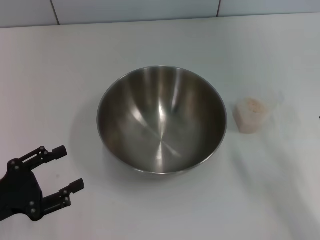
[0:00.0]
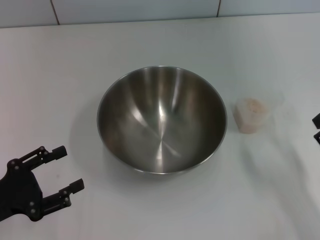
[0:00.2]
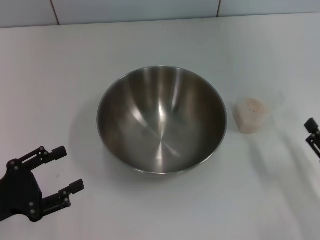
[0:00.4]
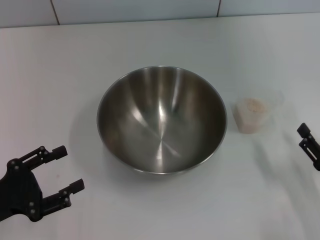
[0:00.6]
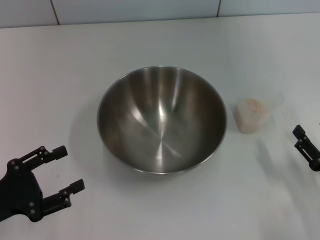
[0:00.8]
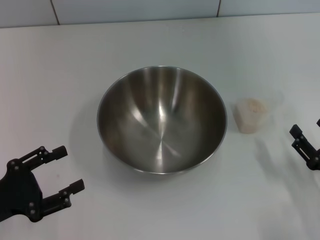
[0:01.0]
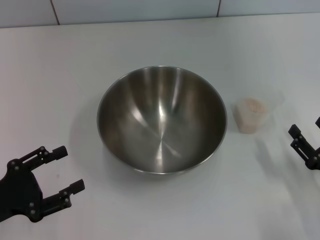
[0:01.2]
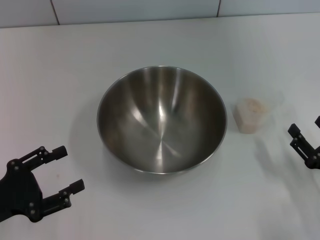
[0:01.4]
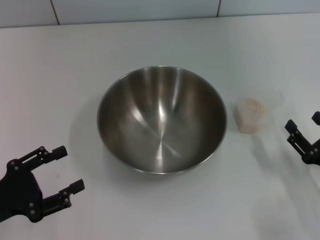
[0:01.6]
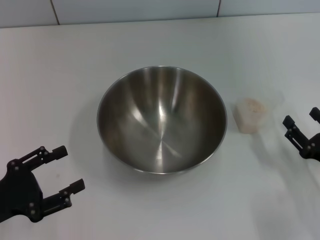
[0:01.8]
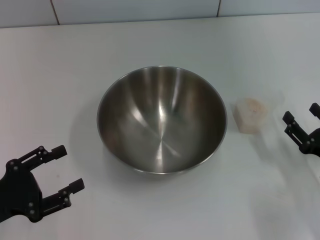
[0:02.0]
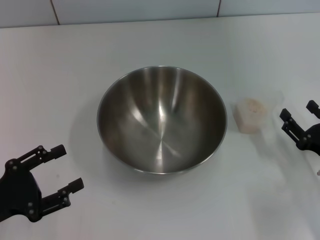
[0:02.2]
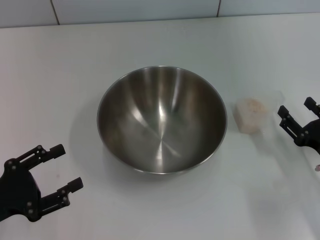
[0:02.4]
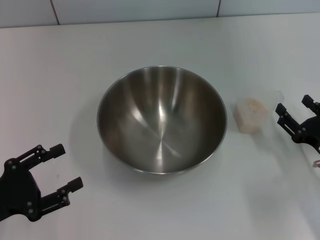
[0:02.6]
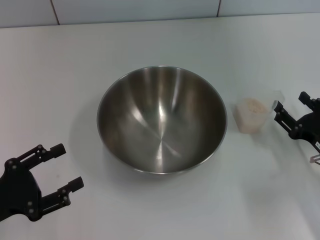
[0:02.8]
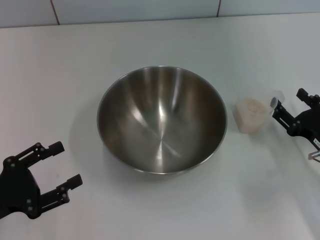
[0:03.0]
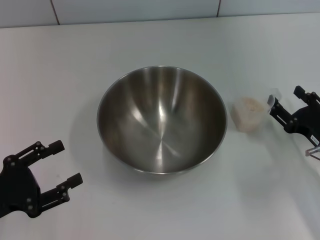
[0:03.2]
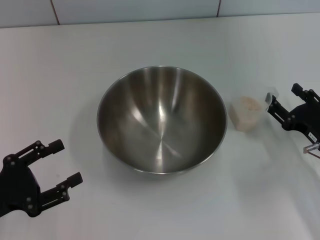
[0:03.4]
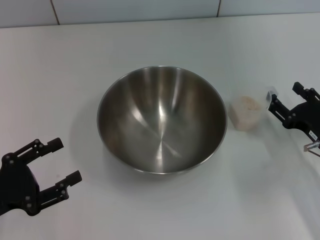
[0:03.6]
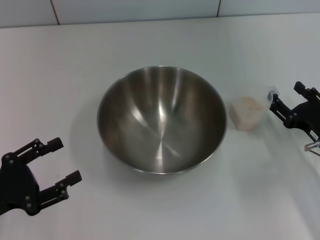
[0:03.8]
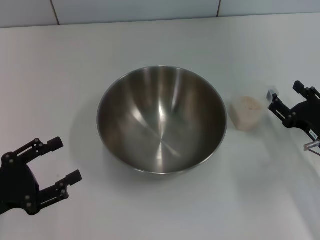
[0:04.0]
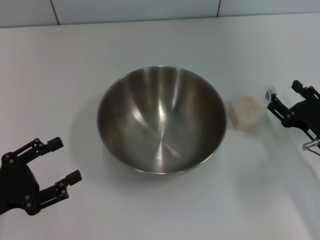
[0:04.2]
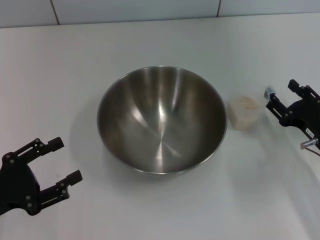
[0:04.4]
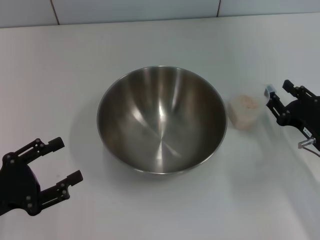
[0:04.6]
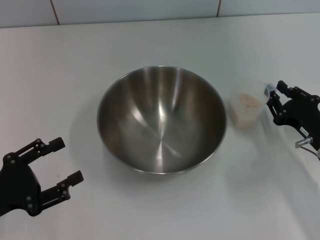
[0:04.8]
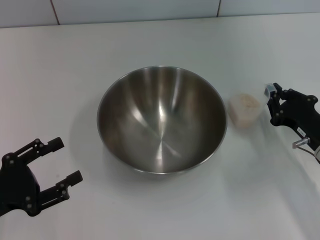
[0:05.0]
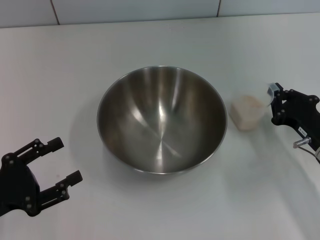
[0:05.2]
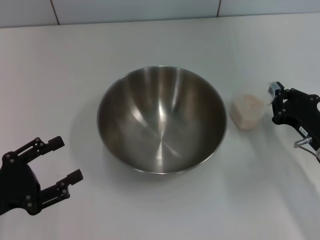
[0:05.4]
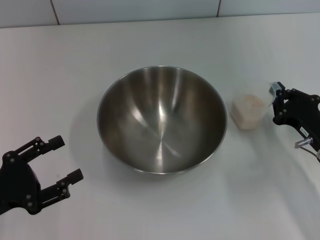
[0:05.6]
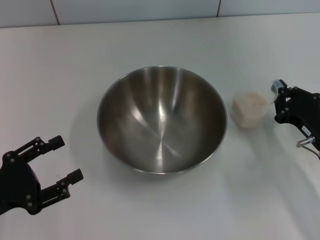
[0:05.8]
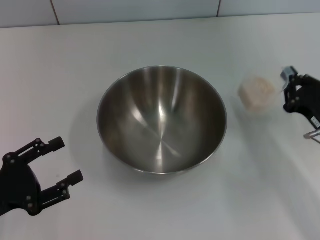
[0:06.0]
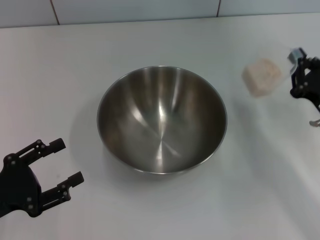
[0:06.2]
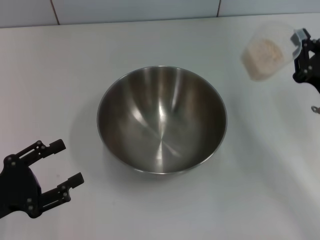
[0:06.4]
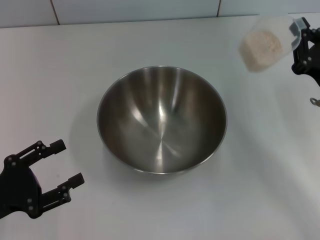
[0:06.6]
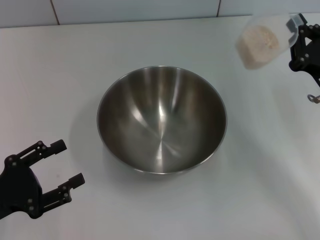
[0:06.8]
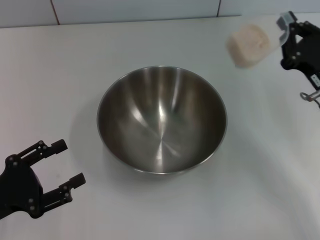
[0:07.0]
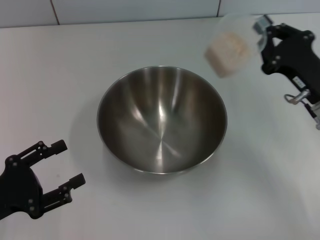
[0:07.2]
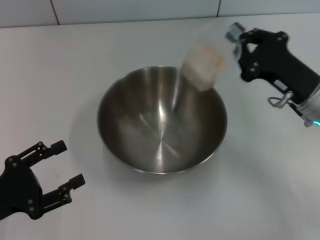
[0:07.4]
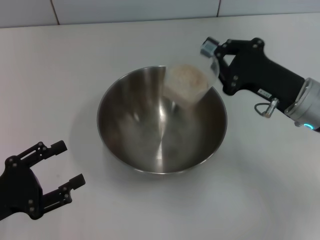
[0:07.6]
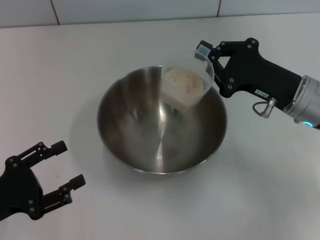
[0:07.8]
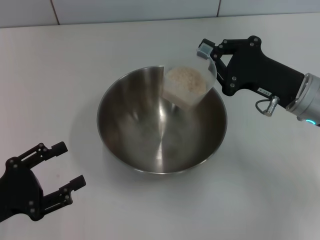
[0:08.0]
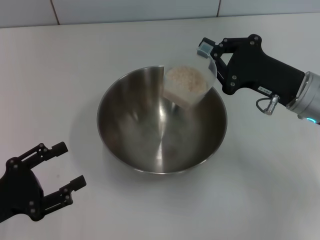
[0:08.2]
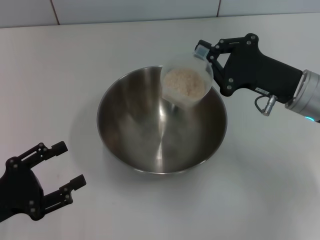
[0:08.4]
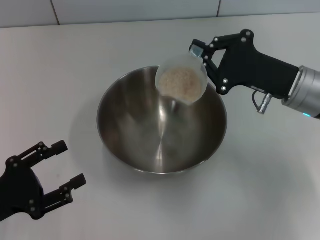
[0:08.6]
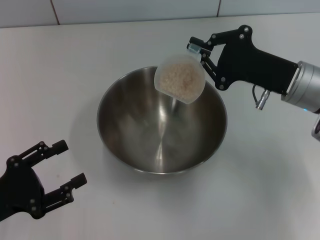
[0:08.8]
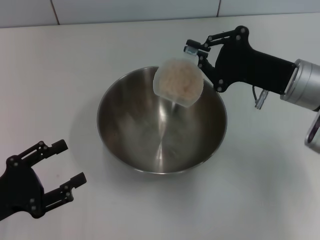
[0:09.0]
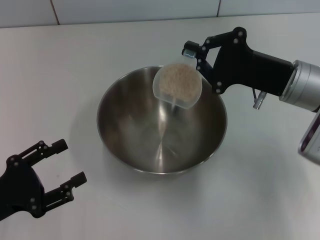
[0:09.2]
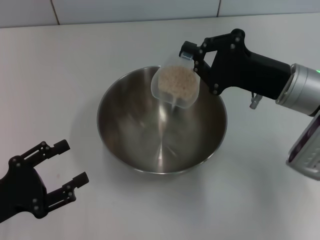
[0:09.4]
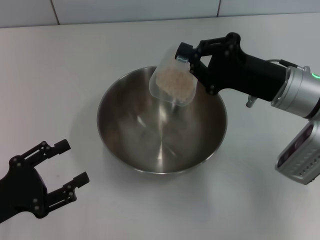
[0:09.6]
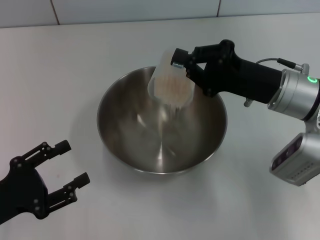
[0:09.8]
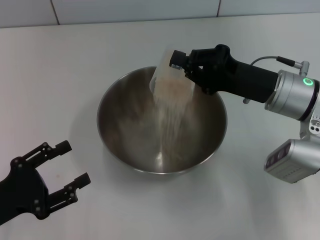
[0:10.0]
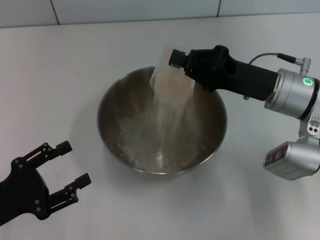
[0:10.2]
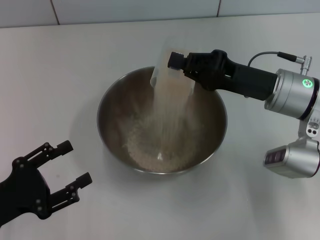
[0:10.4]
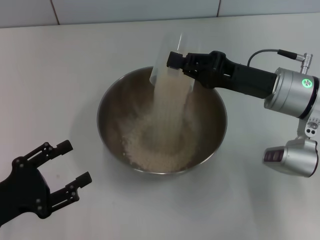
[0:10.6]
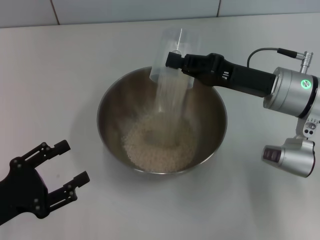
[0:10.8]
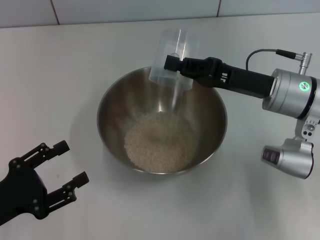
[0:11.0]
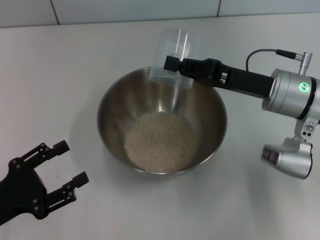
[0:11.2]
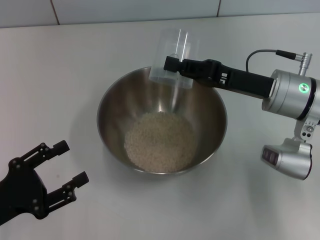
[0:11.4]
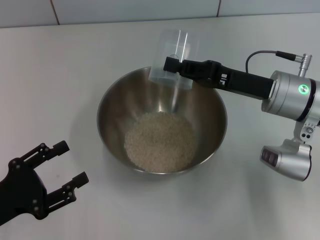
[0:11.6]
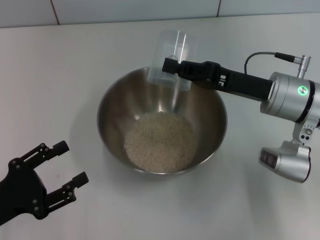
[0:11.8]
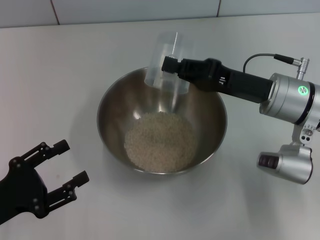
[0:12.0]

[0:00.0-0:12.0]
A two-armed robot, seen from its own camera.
Task of the whole recording: Place the bowl in the middle of the table with one hand and pour the rice from the grain cup into it with the other hand.
Step, 0:00.0 to 0:06.2: Pick up the cup with rice in it with the right gripper.
0:00.0 to 0:01.6: The grippers move only a little.
0:01.6 to 0:03.0: The right gripper heads forward, covering about 5 cm.
0:03.0 to 0:04.4: The grippers stay close to where they were, moving slightly.
0:04.4 to 0:06.0: The right gripper closes.
0:06.0 to 0:07.6: The right gripper goes roughly 10 cm upward, to the left and forward.
0:10.4 to 0:12.0: The grippers stay close to where they were, moving slightly.

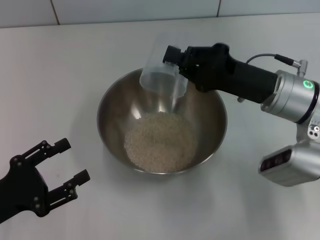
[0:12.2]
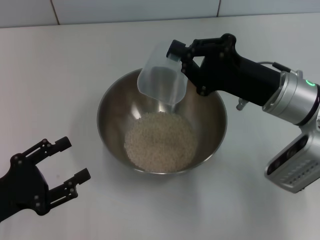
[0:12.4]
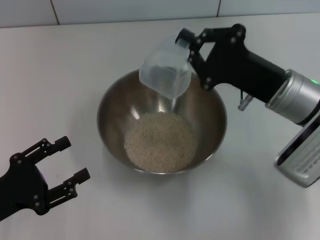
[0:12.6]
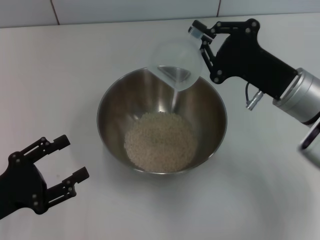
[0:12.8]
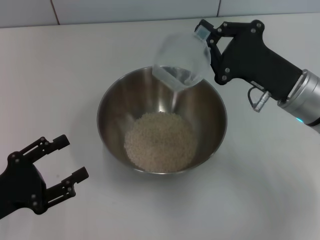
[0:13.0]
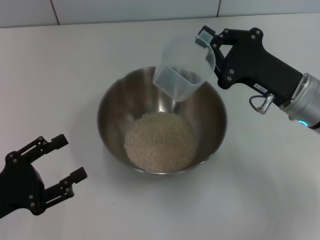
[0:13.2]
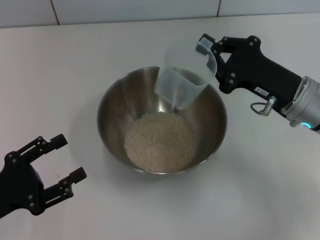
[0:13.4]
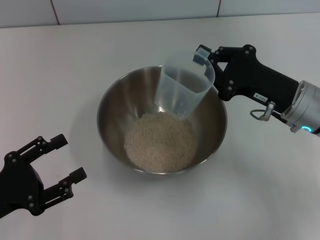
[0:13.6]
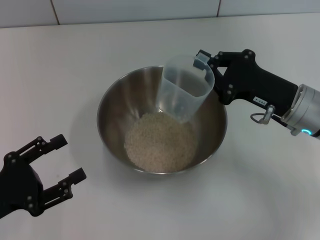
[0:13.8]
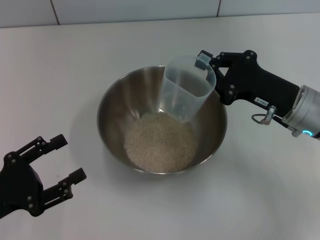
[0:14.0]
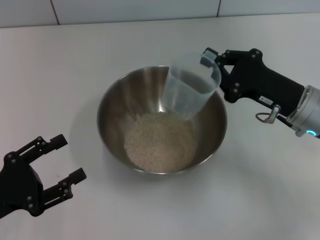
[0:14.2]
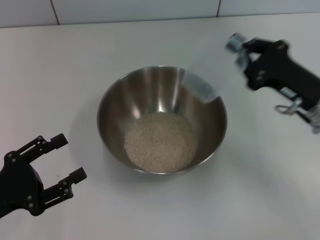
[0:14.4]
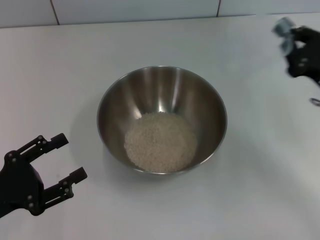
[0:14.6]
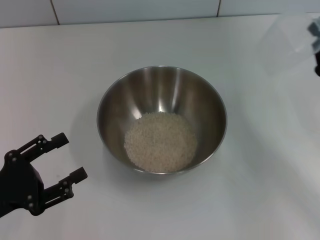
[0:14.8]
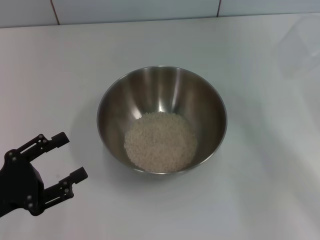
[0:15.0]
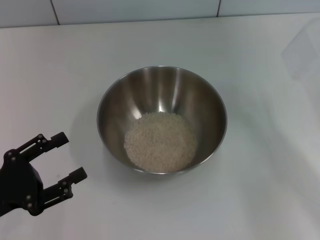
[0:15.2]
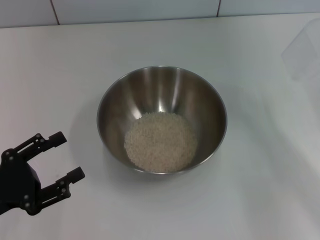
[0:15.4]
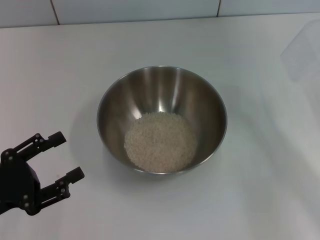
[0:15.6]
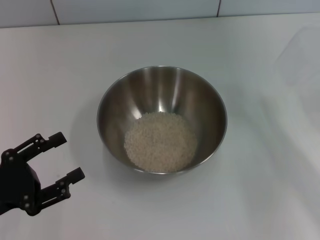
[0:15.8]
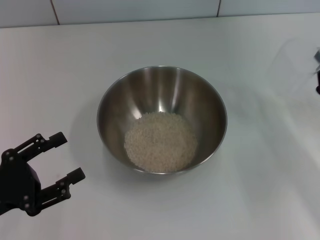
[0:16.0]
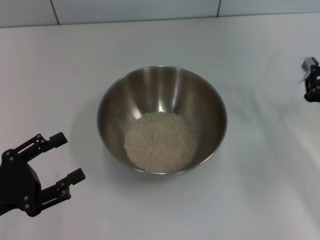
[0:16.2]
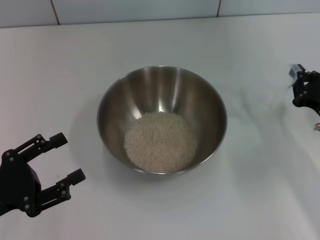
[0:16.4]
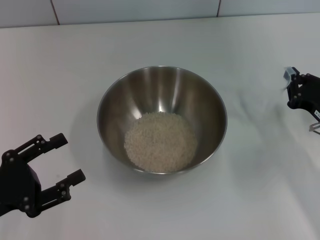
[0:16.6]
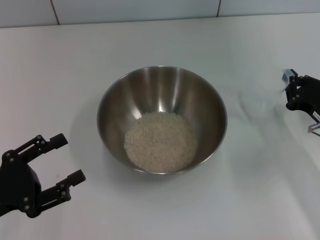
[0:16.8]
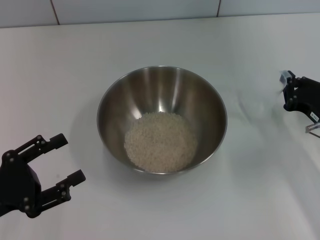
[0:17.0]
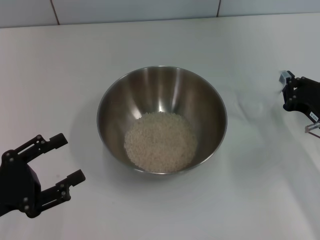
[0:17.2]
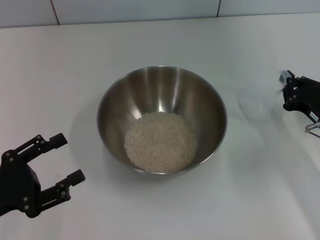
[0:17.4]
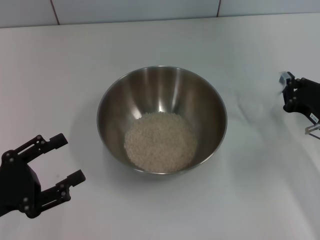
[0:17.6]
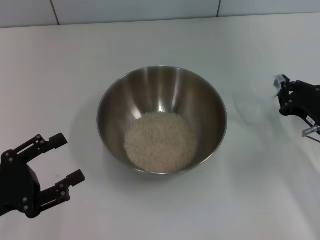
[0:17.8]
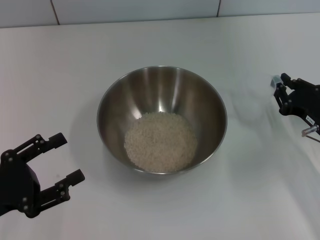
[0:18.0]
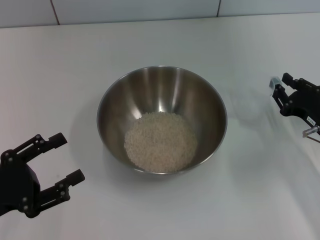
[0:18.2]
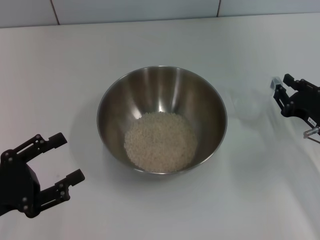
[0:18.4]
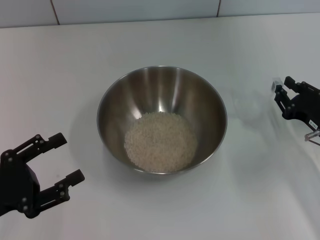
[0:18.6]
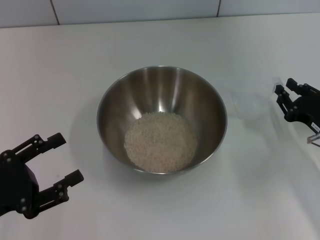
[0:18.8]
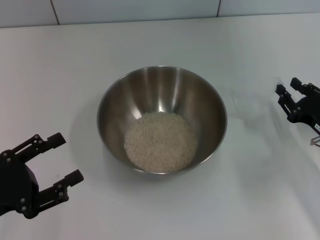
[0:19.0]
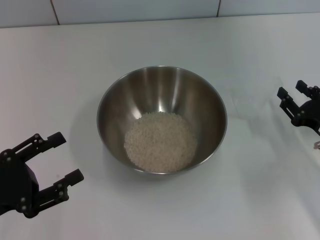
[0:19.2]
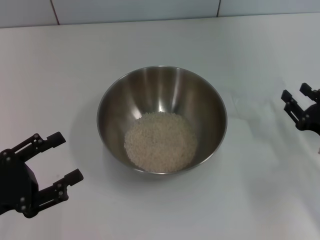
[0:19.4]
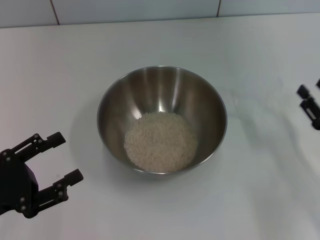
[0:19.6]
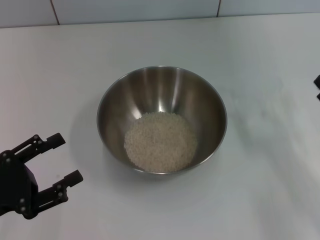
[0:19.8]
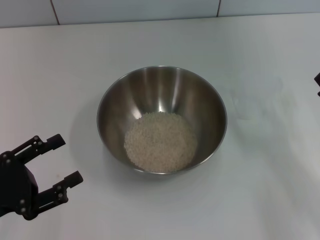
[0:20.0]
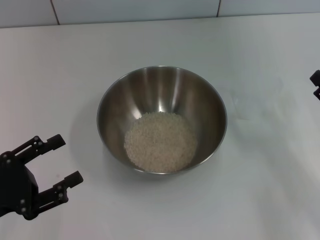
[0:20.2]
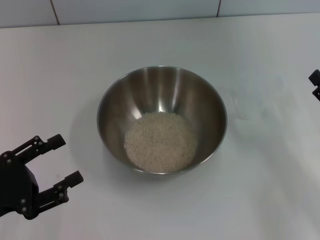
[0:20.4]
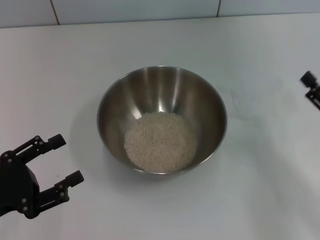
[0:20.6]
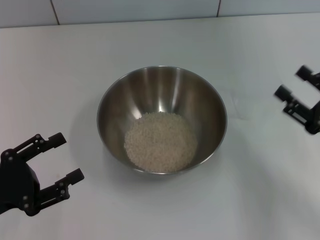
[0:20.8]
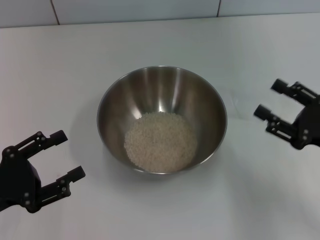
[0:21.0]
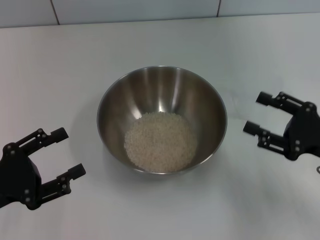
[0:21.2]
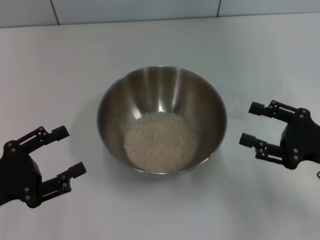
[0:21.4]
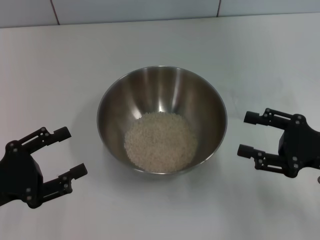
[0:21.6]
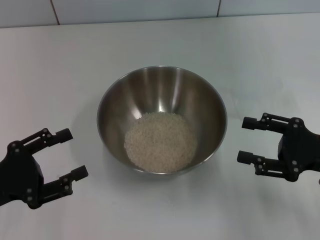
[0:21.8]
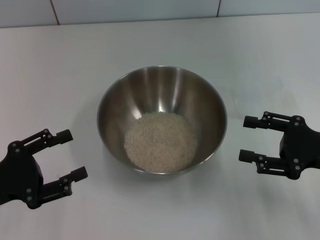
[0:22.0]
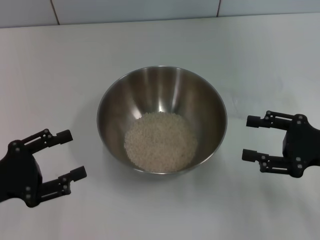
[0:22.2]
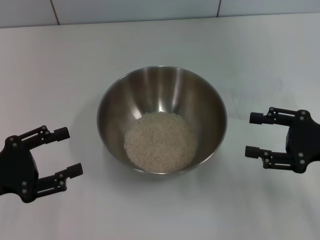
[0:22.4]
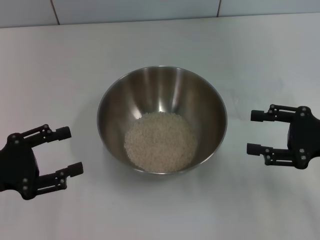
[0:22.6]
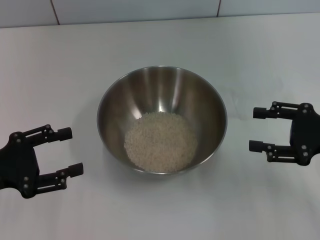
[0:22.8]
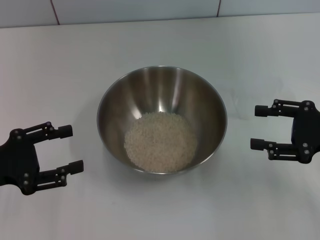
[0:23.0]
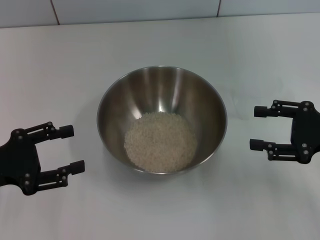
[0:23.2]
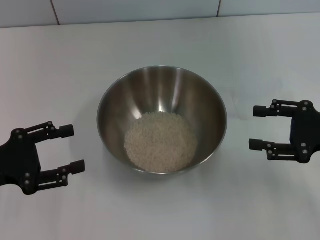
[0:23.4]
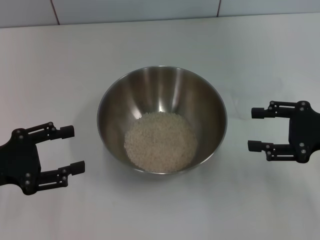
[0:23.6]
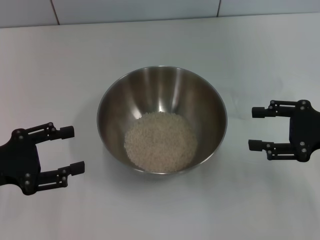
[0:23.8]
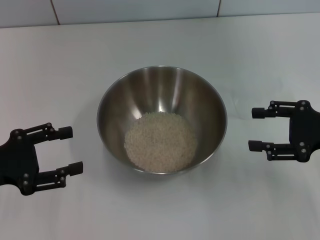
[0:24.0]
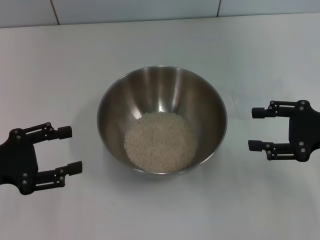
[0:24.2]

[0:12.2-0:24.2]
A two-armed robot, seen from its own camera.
Task of the whole recording: Place the bowl in the middle of the table with one hand and pour the rice from the grain cup into it with the other hand.
Step, 0:12.2 to 0:14.8: Pour the rice from the cup into the bowl with the right gripper.
Step, 0:15.0 to 0:19.6: Place the cup on the table with the right gripper.
0:13.8 to 0:15.2: The right gripper travels to the right and backward by approximately 15 cm.
0:15.2 to 0:16.6: The right gripper changes place by some 5 cm.
0:16.6 to 0:18.2: Both grippers stay put.
0:18.2 to 0:19.8: The right gripper travels backward by approximately 5 cm, and opens its fingers.
0:21.2 to 0:22.6: The grippers move only a little.
0:22.6 to 0:24.2: The grippers stay close to where they were, moving slightly.
